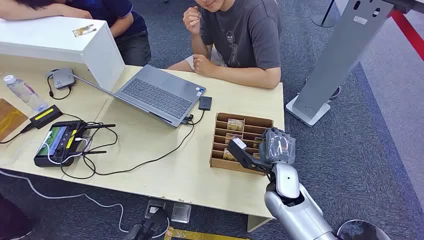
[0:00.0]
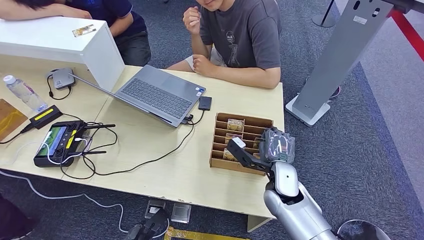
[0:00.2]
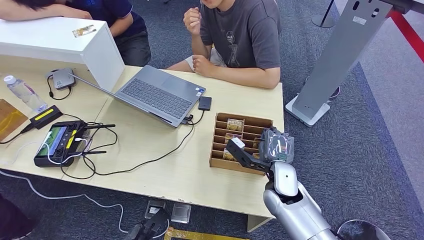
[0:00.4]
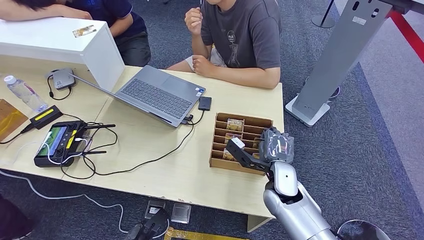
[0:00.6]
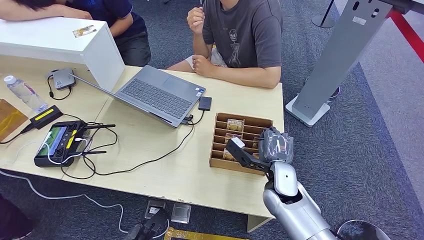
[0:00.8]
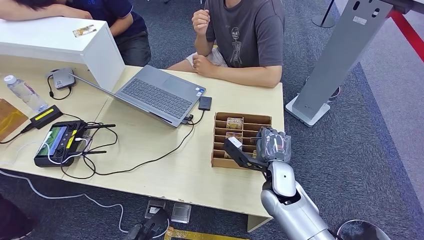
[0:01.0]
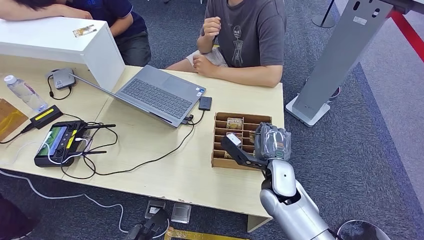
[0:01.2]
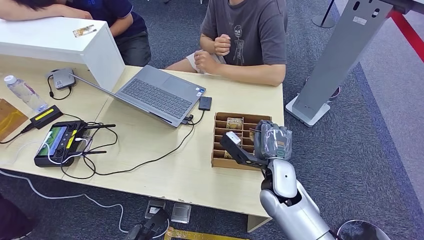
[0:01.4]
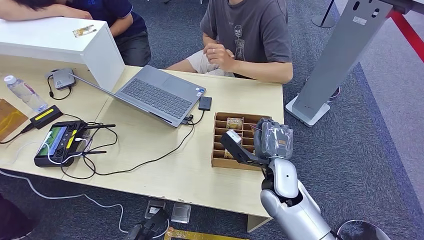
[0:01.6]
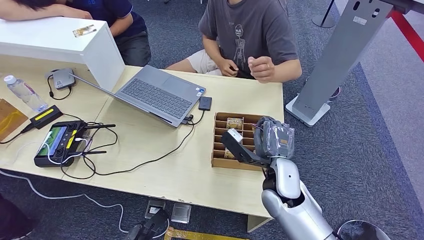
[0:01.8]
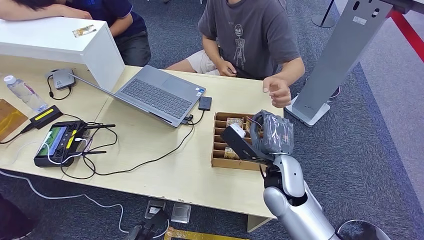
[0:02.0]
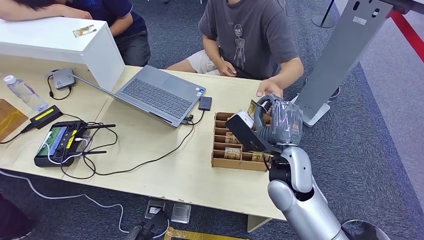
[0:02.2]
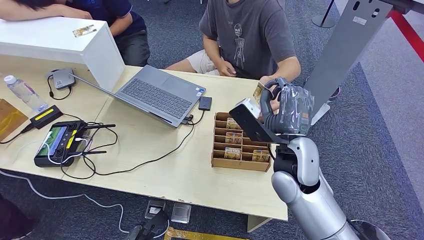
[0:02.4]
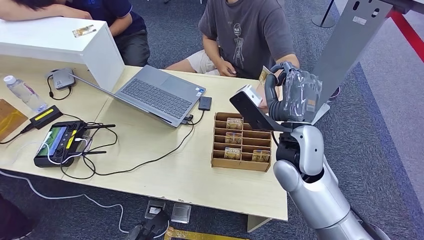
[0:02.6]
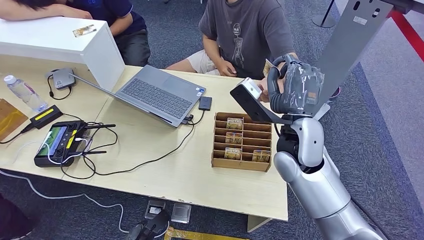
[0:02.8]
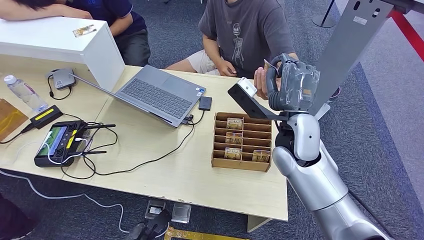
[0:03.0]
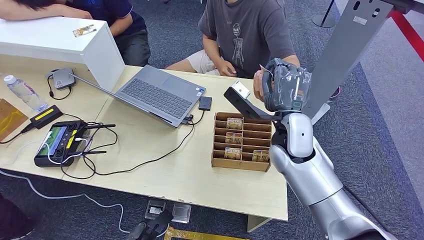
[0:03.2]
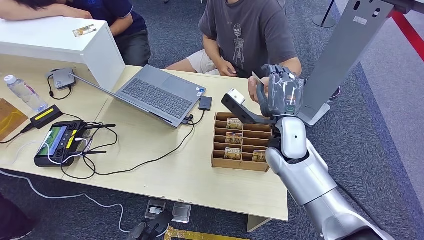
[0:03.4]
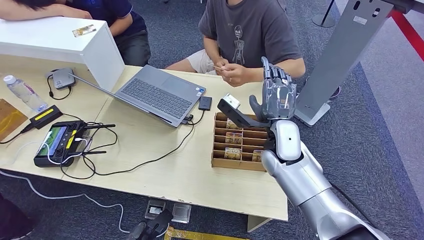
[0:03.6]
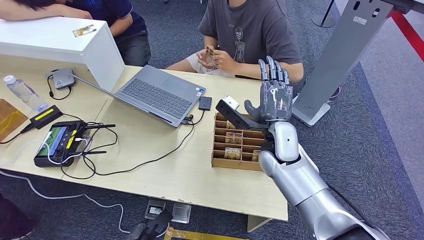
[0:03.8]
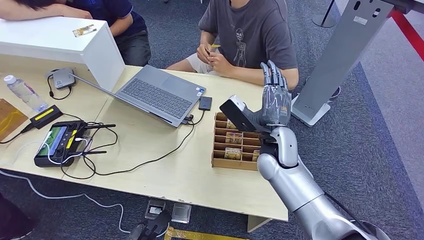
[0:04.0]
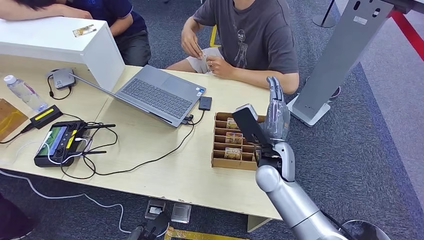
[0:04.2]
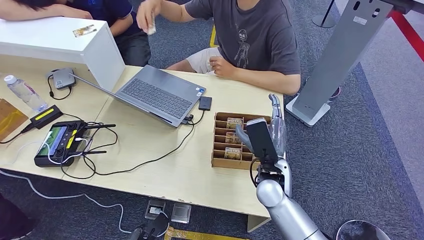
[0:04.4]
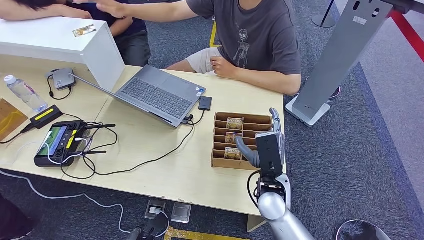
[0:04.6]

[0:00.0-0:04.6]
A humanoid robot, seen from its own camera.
Step, 0:00.0 to 0:02.2: Pick up the room card from the card holder.
Step, 0:02.4 to 0:04.6: Hand the room card to the target.
0:01.6 to 0:03.0: The right hand is displaced upward and forward by some 15 cm.
0:03.0 to 0:04.6: The right hand is displaced downward and backward by approximately 15 cm.
